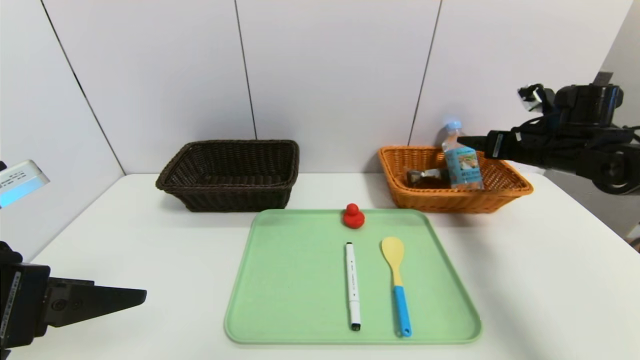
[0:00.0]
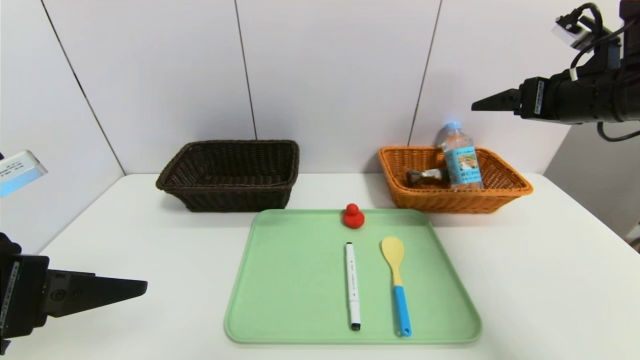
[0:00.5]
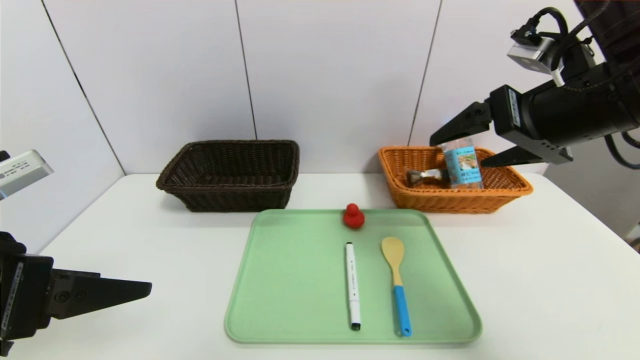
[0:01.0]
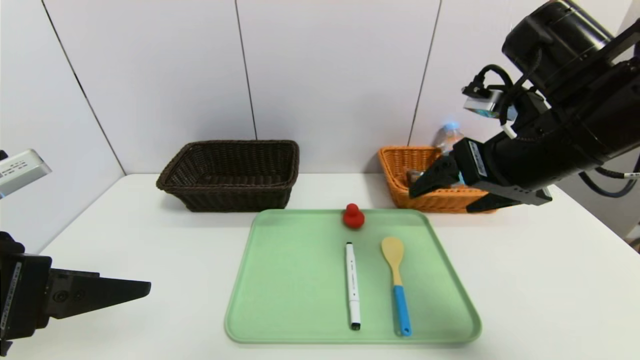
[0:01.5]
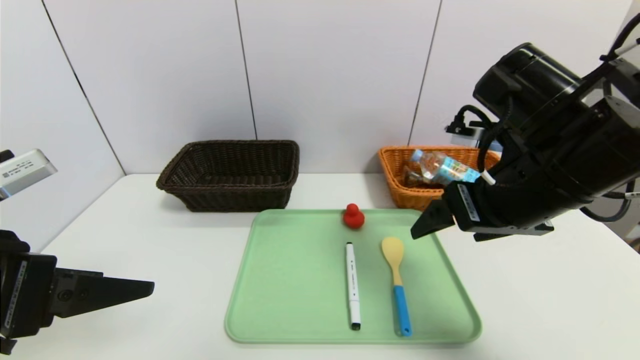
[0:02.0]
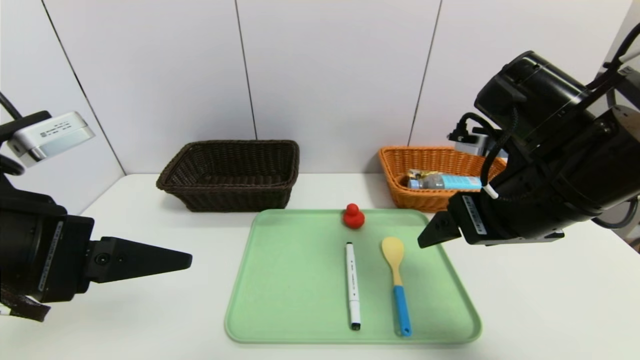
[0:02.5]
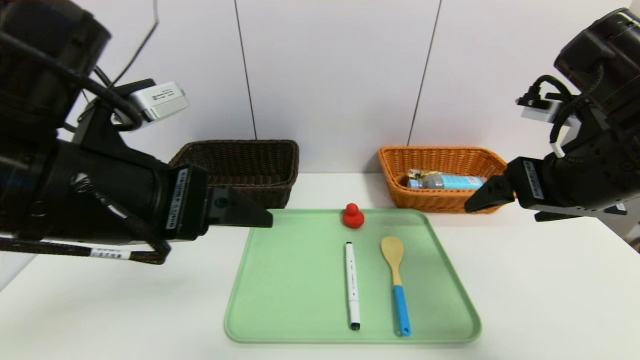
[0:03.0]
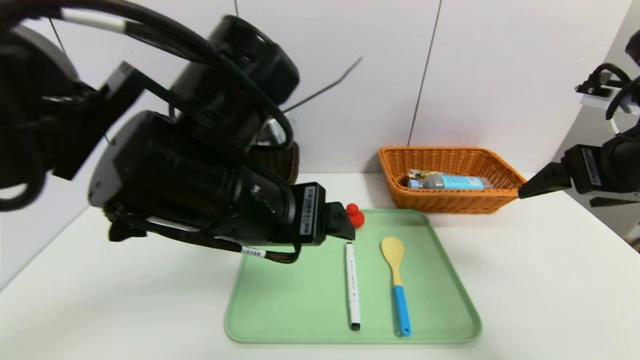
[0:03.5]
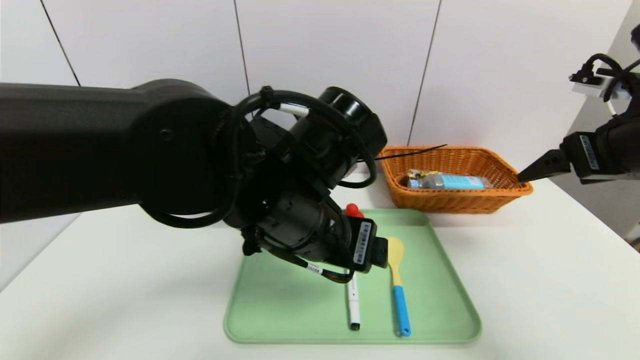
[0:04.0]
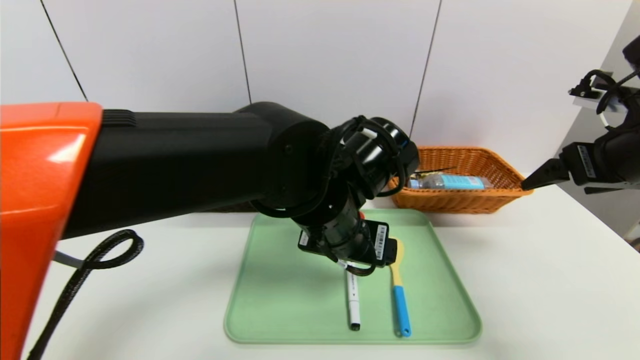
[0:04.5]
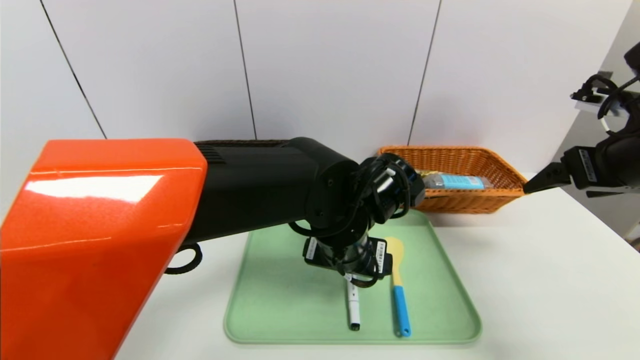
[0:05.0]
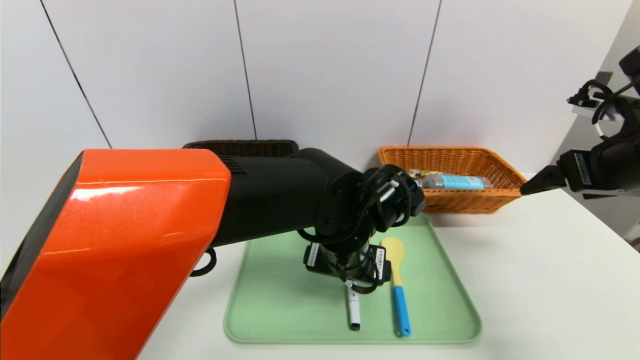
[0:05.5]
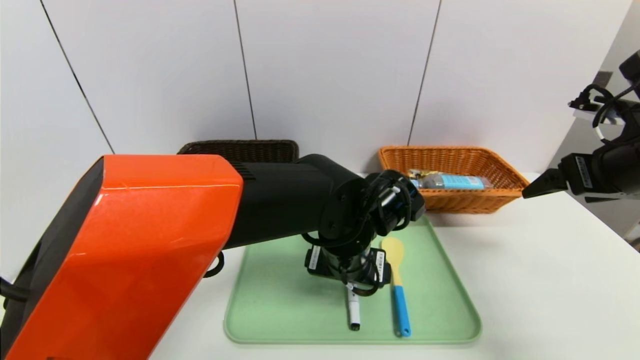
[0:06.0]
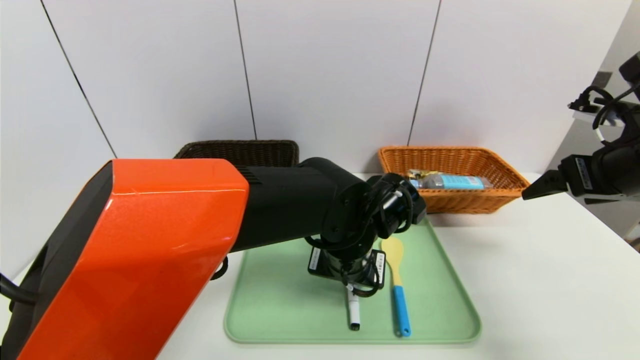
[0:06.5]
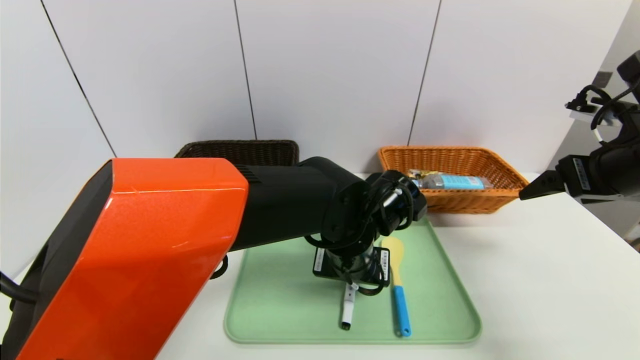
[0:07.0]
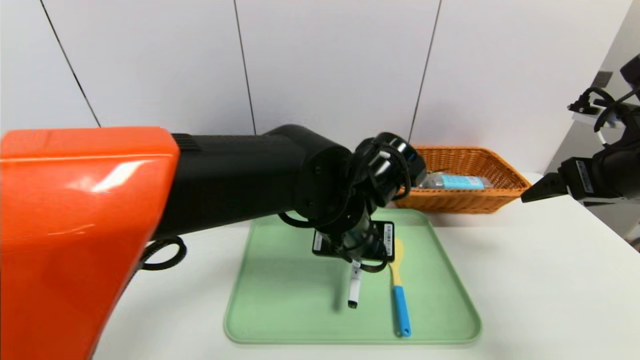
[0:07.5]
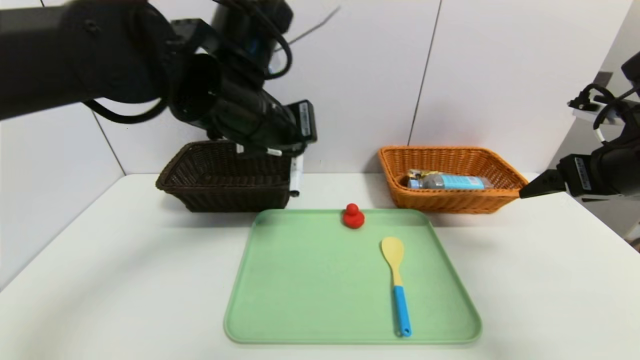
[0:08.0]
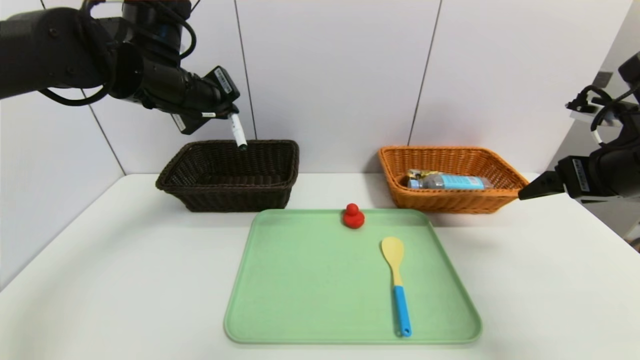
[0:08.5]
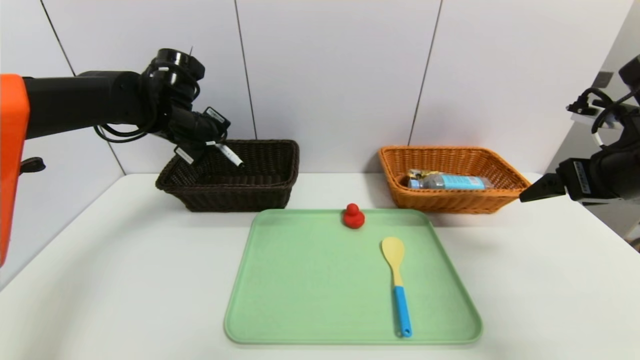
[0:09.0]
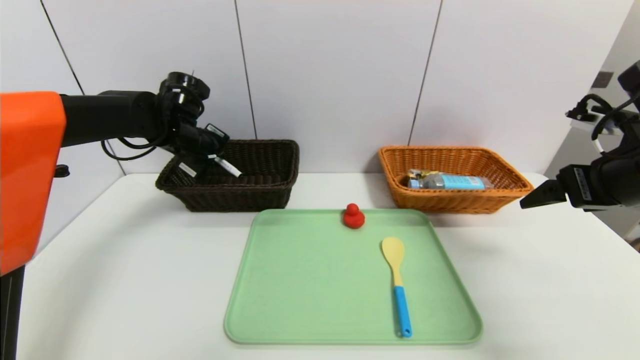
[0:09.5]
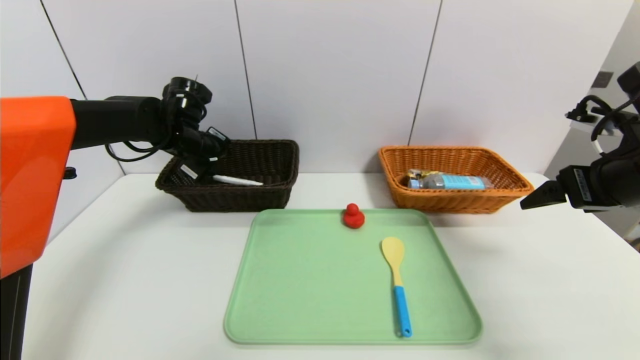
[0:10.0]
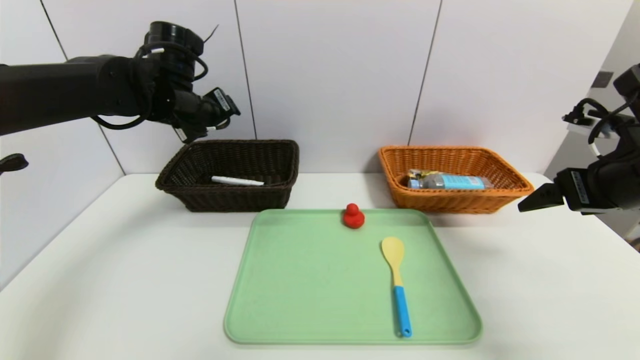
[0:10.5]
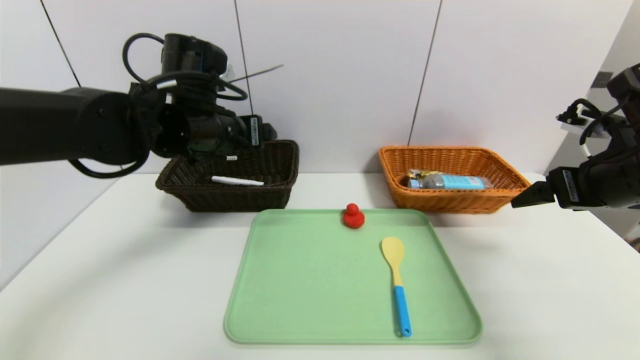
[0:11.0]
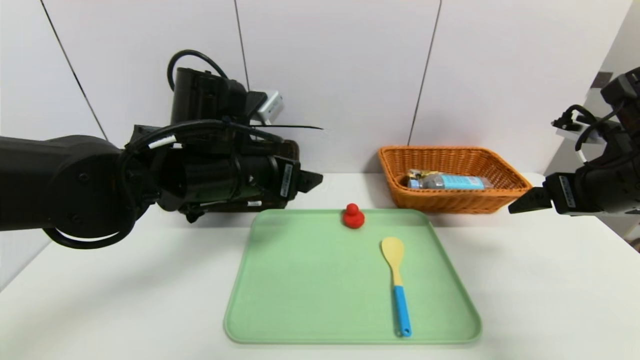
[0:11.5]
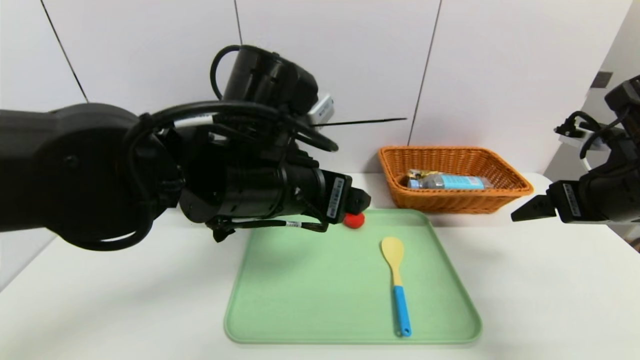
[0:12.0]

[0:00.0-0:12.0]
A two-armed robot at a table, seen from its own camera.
Task of the whole recording: place the food in the right basket with the right gripper, and place the non food items in the left basket with the left gripper.
Step, 0:00.5 to 0:10.0: Grasp the black marker and put it in the left basket.
0:00.0 to 0:02.0: The right gripper moves to the left and backward, roughly 20 cm.
0:02.0 to 0:04.0: The right gripper travels to the right by some 15 cm; the left gripper is displaced to the right and forward by some 25 cm.
0:04.0 to 0:06.0: The left gripper is displaced downward and to the right by approximately 10 cm.
0:06.0 to 0:08.0: The left gripper heads upward and to the left, covering some 20 cm, and closes its fingers.
0:08.0 to 0:10.0: The left gripper travels forward, to the left and downward by some 25 cm, and opens.
0:10.0 to 0:12.0: The left gripper travels backward and to the right by about 30 cm, and opens.

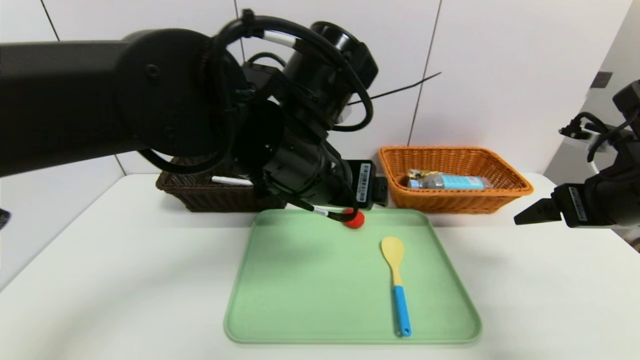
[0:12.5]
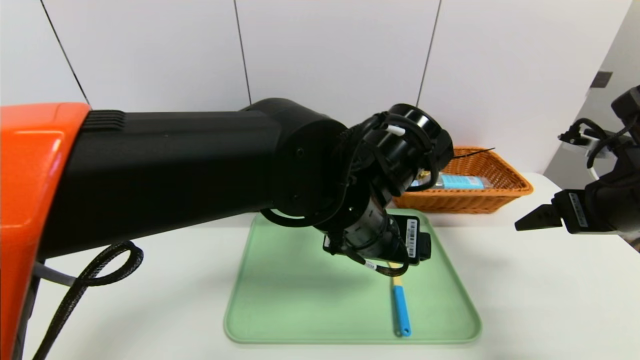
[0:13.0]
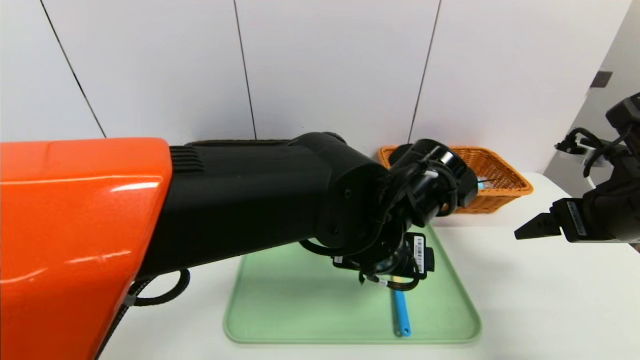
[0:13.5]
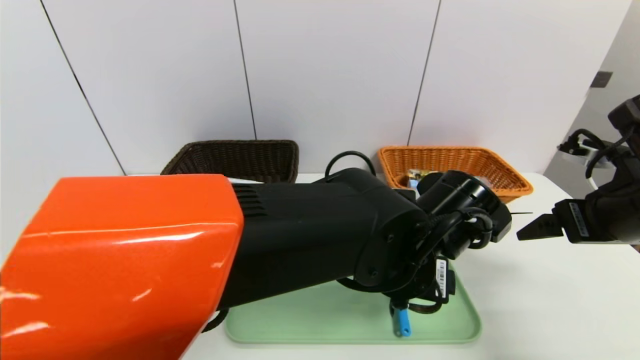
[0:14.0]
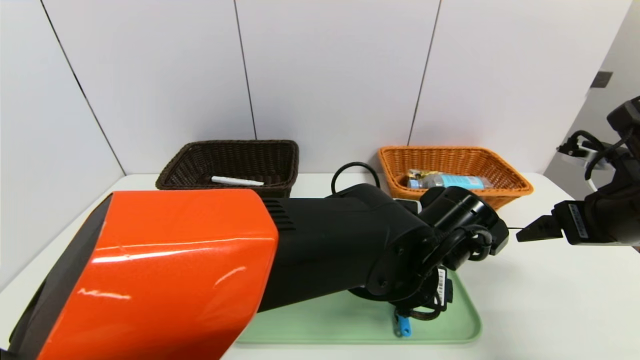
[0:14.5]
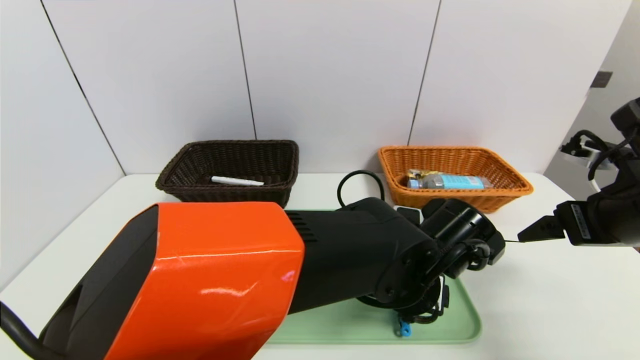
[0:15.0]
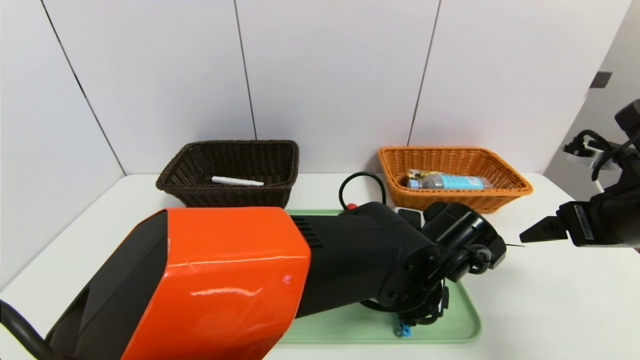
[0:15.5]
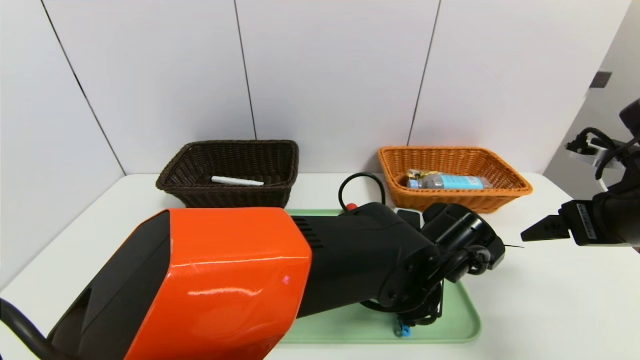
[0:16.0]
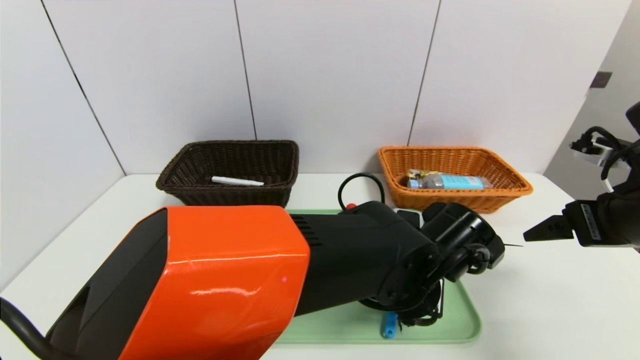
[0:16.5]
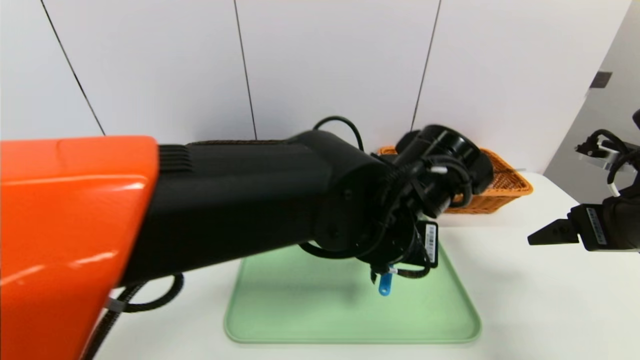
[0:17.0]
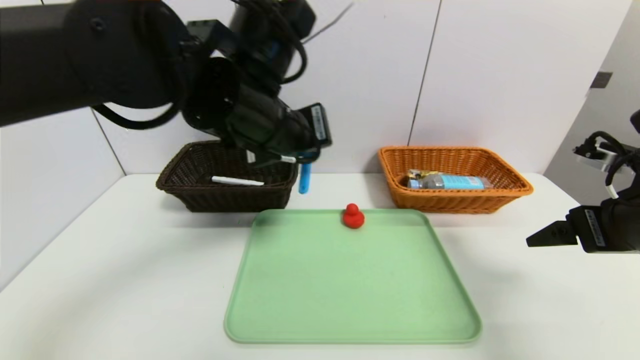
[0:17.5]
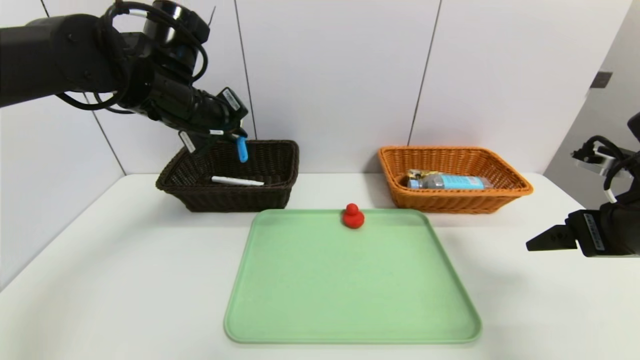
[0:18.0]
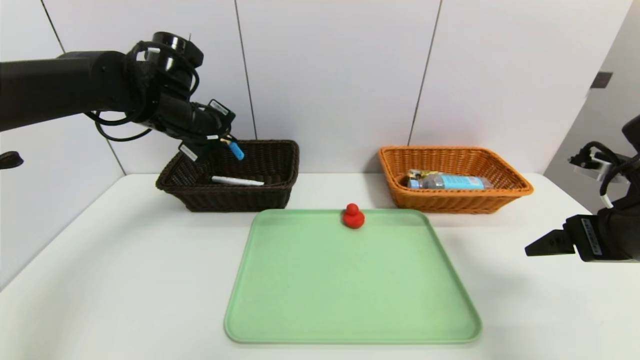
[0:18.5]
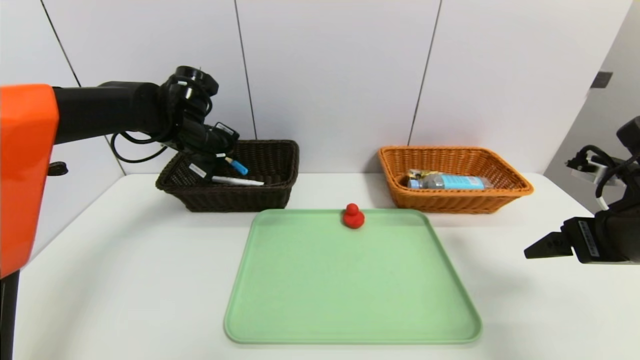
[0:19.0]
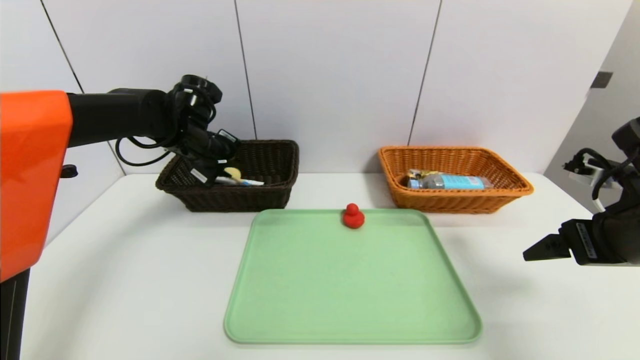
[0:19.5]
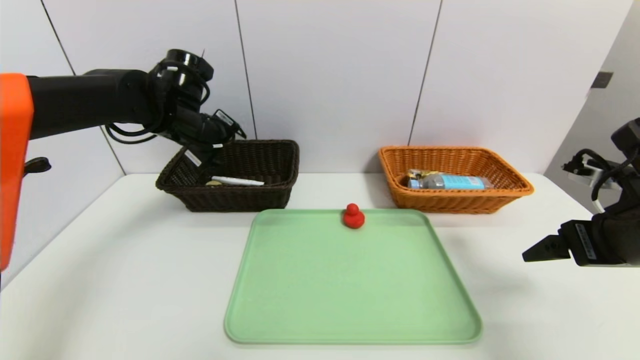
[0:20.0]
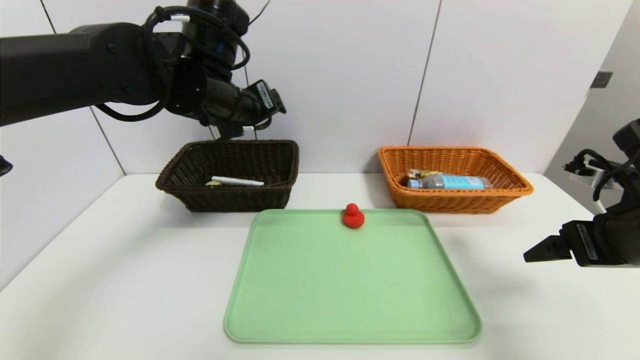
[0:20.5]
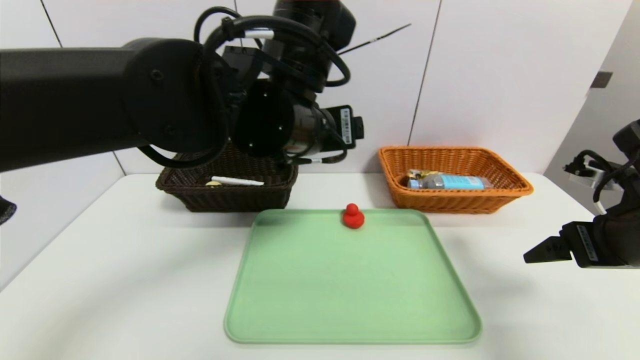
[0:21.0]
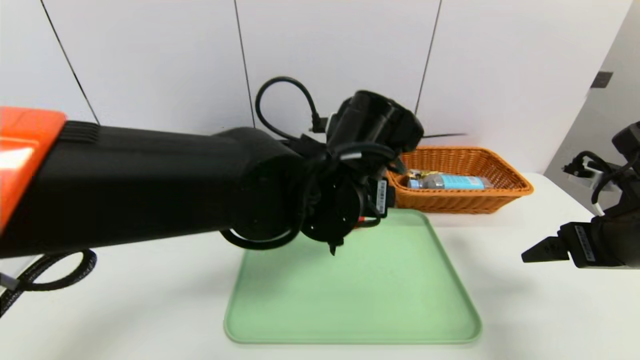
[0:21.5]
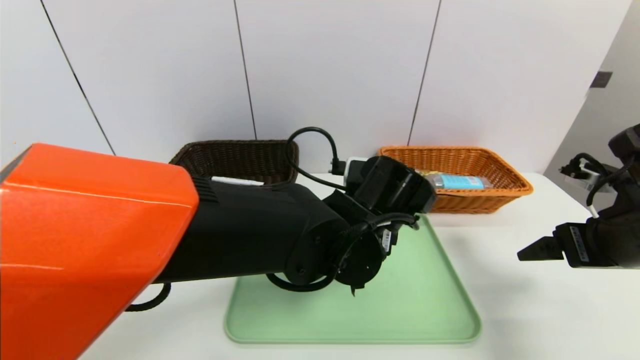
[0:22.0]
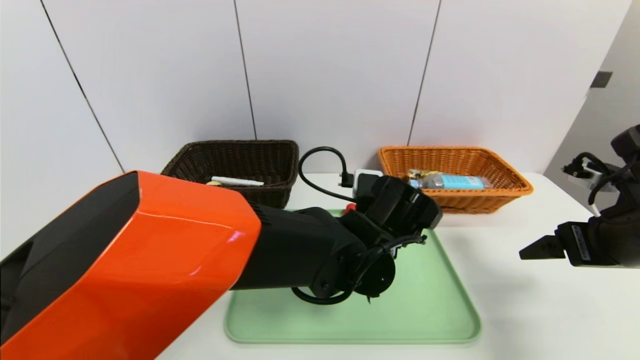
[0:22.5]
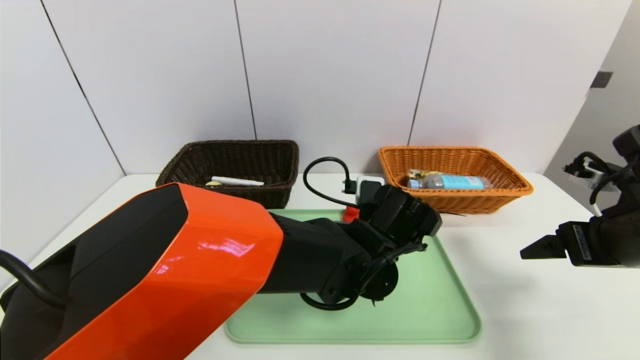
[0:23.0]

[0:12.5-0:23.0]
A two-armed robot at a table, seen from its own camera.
Task of the whole recording: place the food in the right basket with the right gripper, and place the non food items in the left basket with the left gripper.
Step, 0:12.5 to 0:20.0: Grasp the spoon and put it in the left basket.
0:12.5 to 0:14.5: The left gripper goes roughly 15 cm downward and to the right.
0:14.5 to 0:16.5: The left gripper closes.
0:16.5 to 0:19.0: The left gripper travels to the left and forward by about 35 cm.
0:19.0 to 0:21.0: The left gripper moves to the right, backward and upward, about 25 cm, and opens.
0:21.0 to 0:23.0: The left gripper moves downward and to the right, approximately 20 cm.
